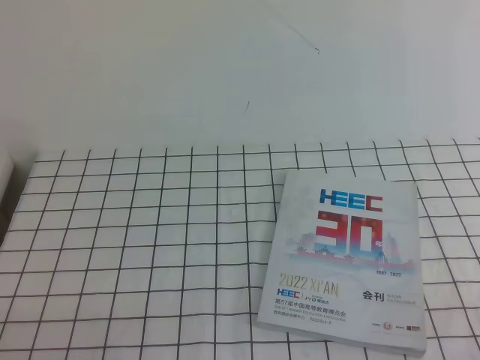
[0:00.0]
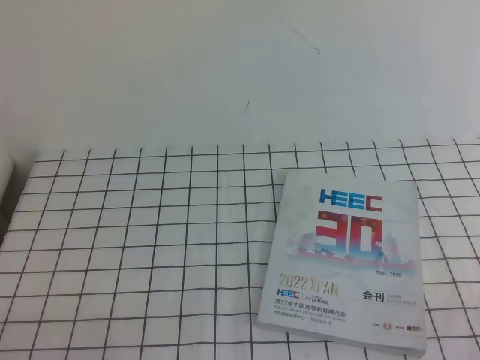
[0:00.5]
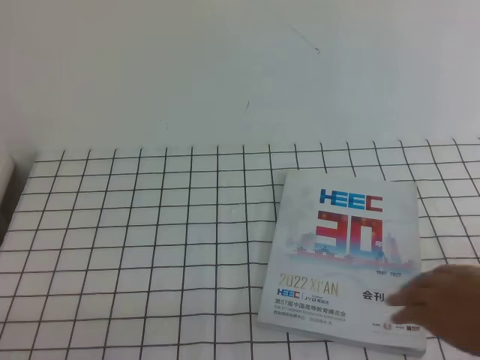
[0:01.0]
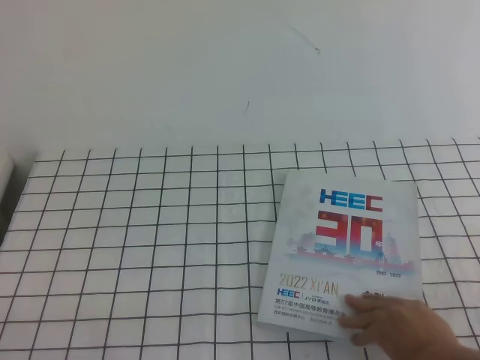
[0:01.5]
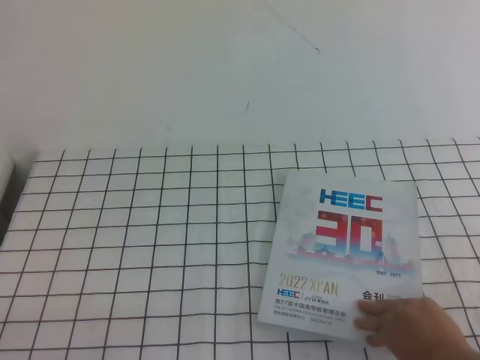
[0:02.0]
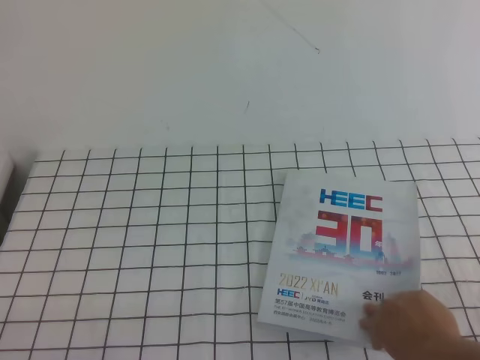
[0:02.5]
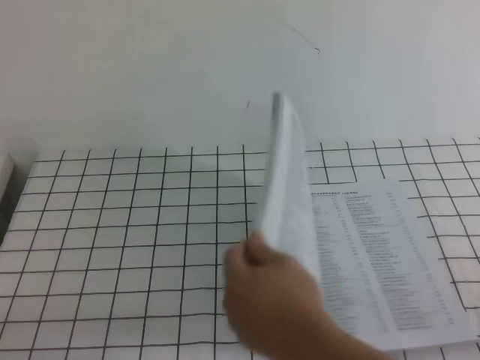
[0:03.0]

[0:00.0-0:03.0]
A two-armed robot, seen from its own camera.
Task of the whole recording: on the white tablecloth, hold the book with one hand and close it with the other.
Step, 0:00.0 to 0:03.0: Close the open book.
0:00.0 to 0:01.5: The two grippers keep their place.

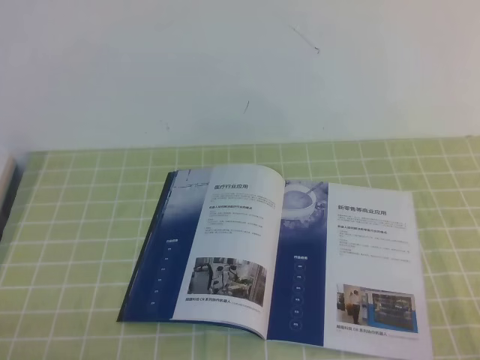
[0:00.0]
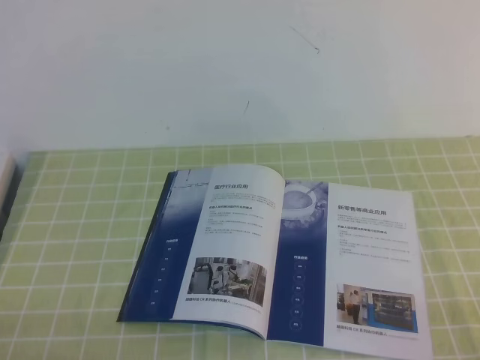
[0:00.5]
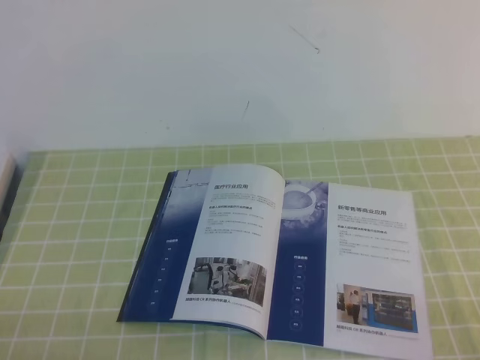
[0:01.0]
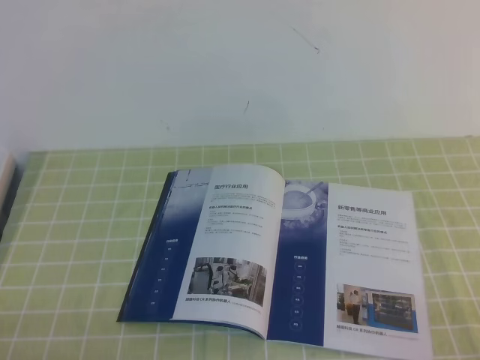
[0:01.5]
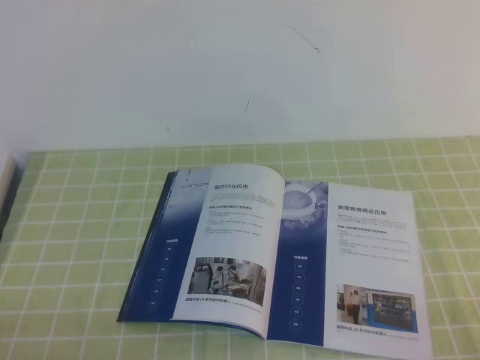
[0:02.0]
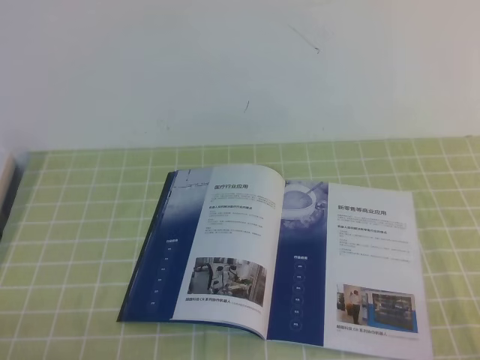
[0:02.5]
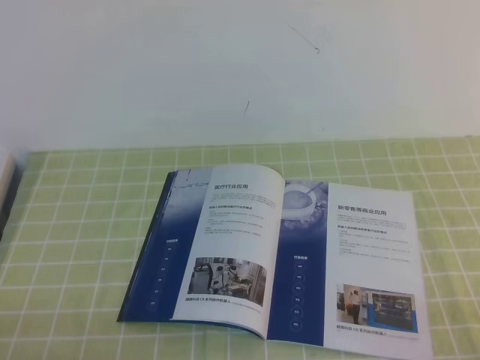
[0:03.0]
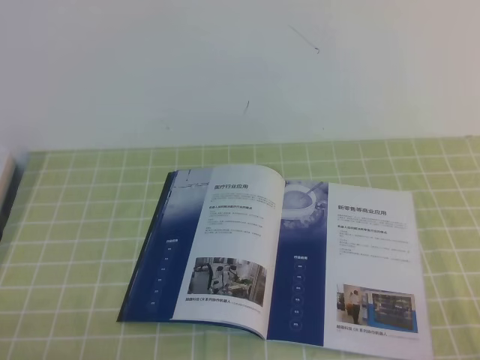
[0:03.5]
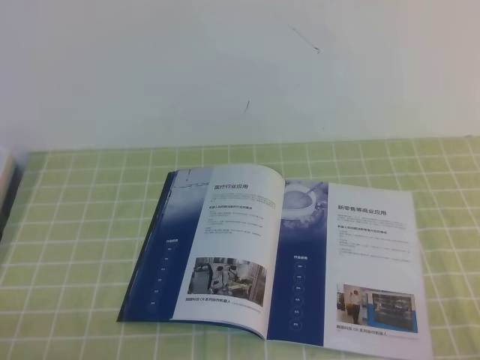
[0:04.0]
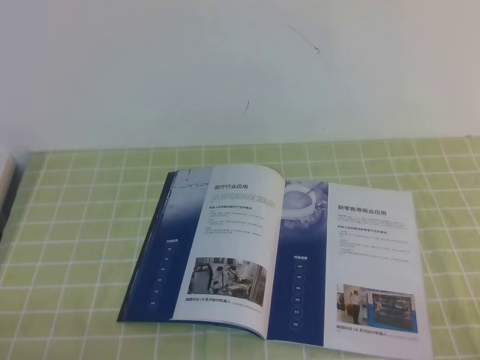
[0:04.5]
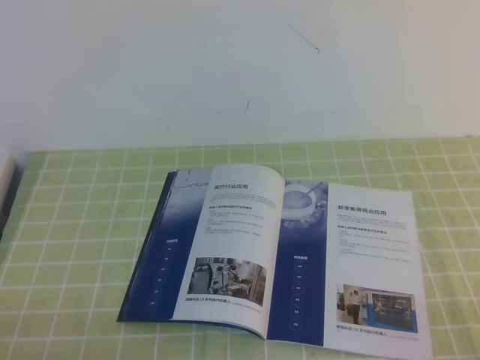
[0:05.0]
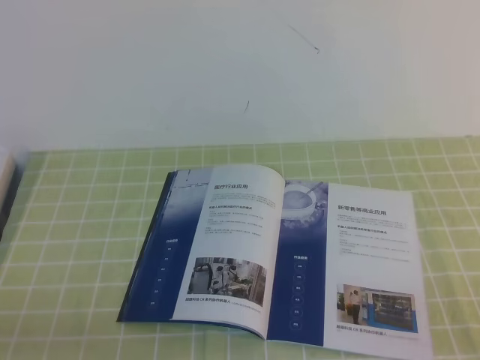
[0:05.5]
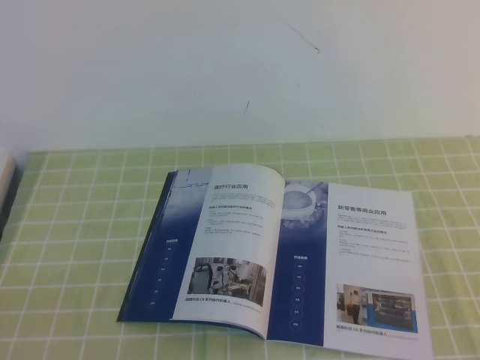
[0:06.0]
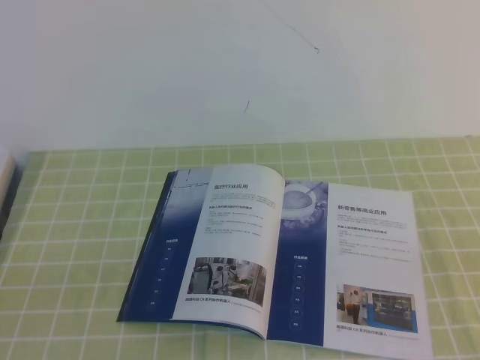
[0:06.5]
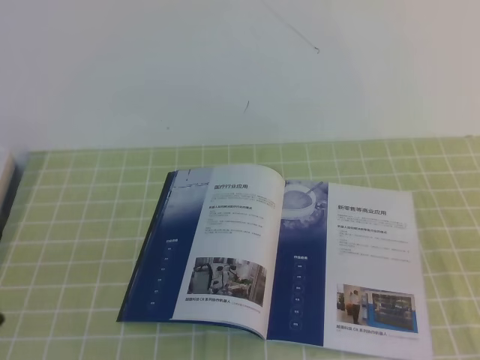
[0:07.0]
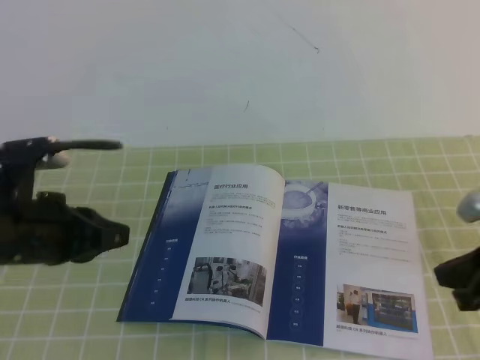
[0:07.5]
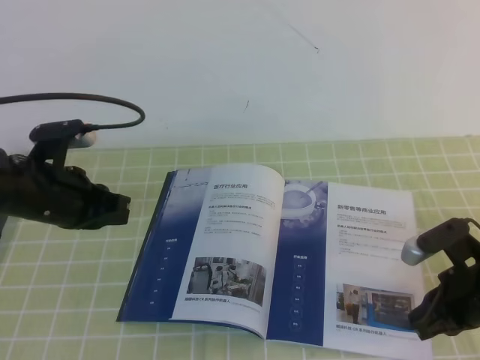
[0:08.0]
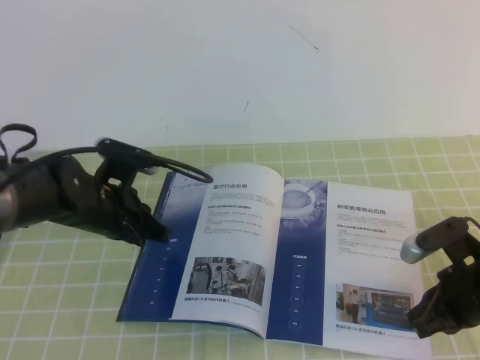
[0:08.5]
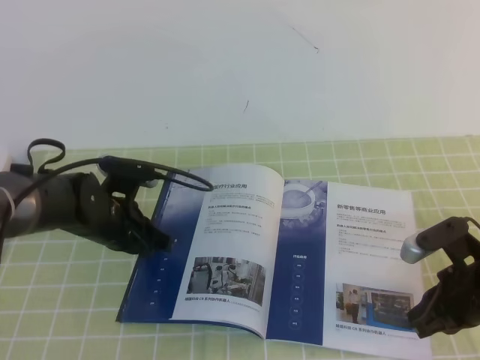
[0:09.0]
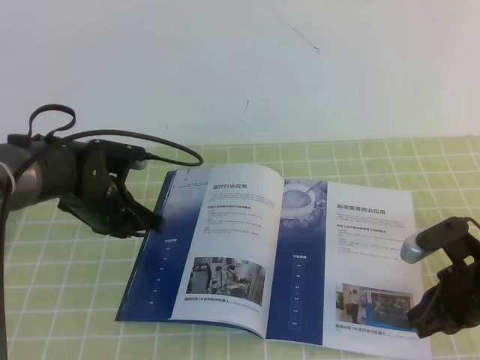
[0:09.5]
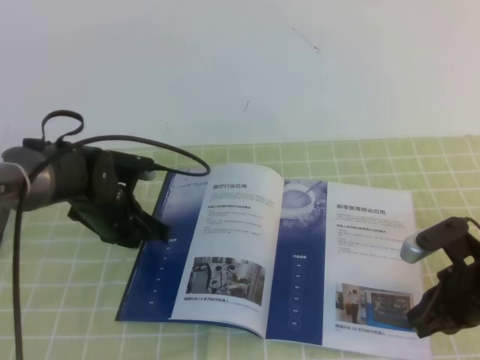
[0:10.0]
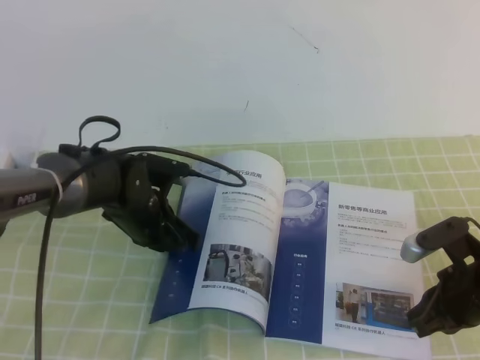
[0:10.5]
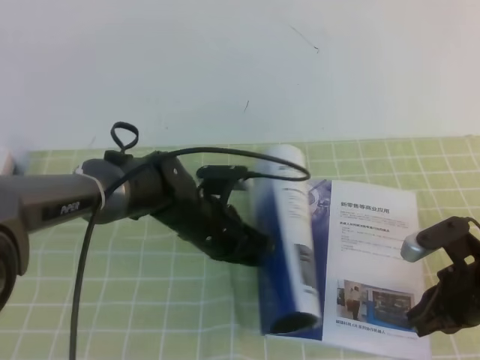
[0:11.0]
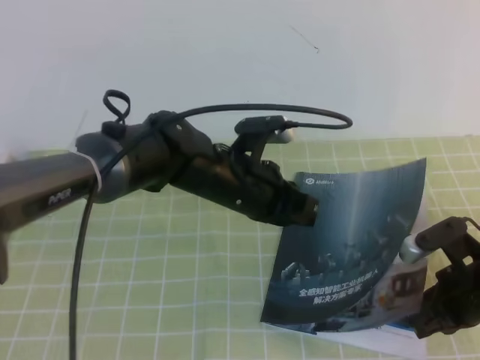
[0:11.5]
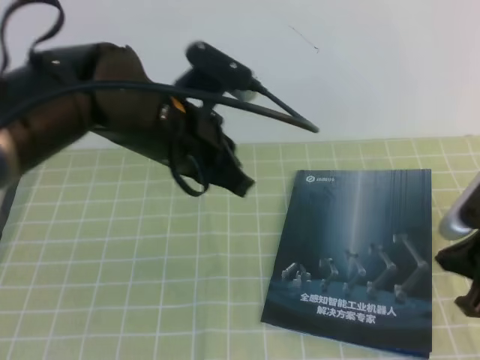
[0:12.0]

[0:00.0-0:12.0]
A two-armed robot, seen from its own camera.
Task of the whole recording: on the green tablecloth, hold the book with one hand and close it with the other.
0:00.0 to 0:04.0: Both grippers stay about where they are.
0:06.0 to 0:08.0: The left gripper travels forward by roughly 30 cm. Meanwhile the right gripper goes approximately 25 cm forward and downward.
0:08.0 to 0:10.0: The left gripper heads downward, forward and to the right, covering roughly 10 cm.
0:10.0 to 0:12.0: The right gripper heads upward, covering approximately 10 cm. Meanwhile the left gripper shifts about 20 cm upward, to the right and backward.

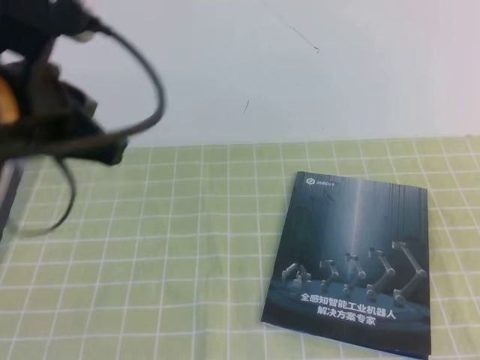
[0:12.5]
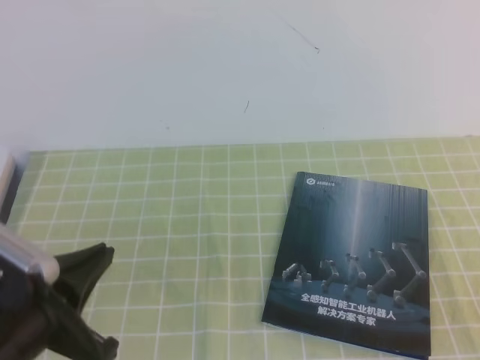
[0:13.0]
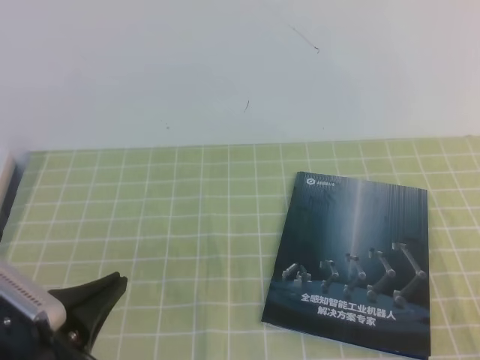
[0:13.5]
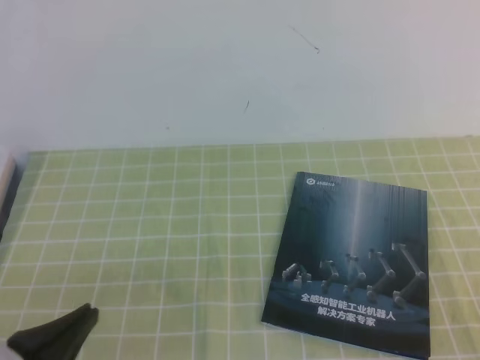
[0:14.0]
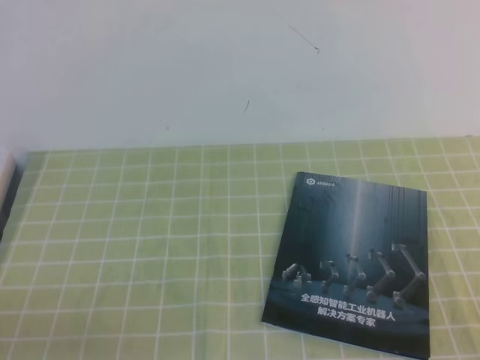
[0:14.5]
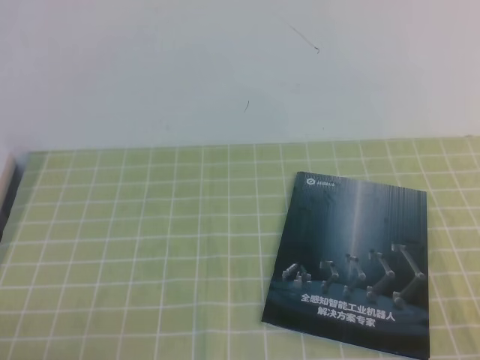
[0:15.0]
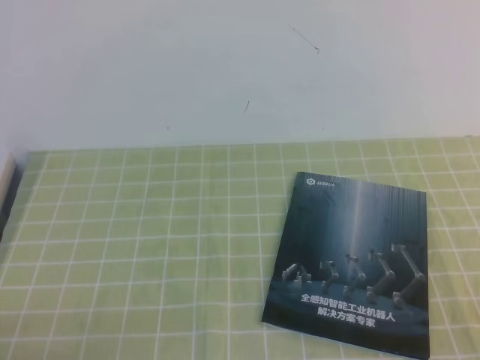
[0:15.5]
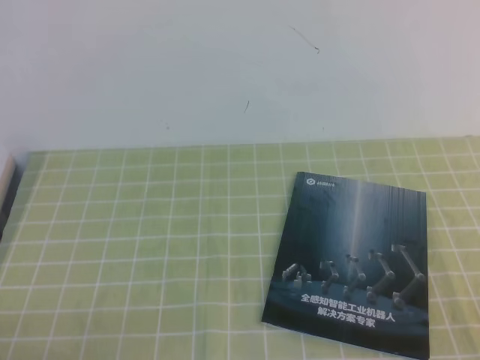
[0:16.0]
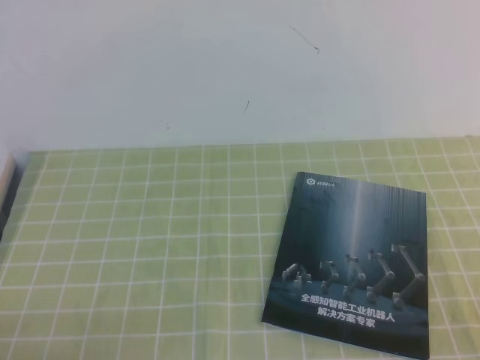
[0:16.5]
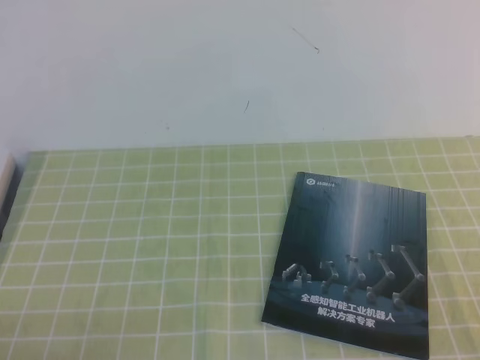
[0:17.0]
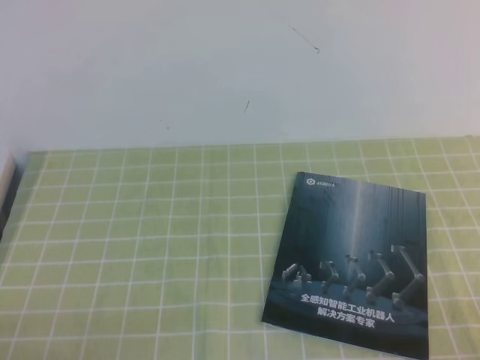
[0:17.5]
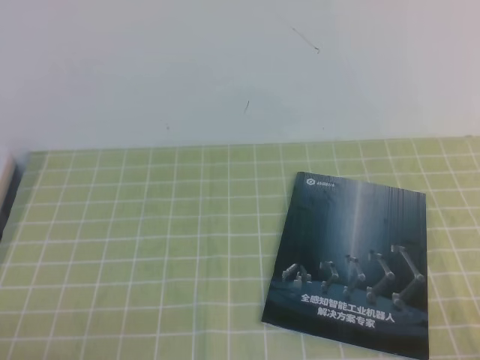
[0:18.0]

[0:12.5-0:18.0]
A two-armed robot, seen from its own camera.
Task of the whole recording: on the green tablecloth, hold the book with one hand and close it with the other.
Step, 0:12.5 to 0:18.0: Close the open book.
0:12.5 to 0:14.5: The right gripper shifts some 10 cm downward and backward. Meanwhile the left gripper heads downward, backward and to the left, covering some 25 cm.
